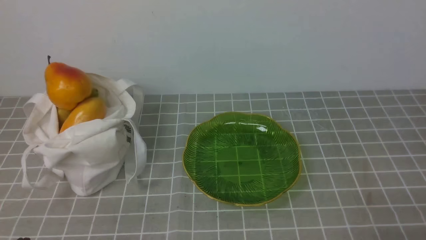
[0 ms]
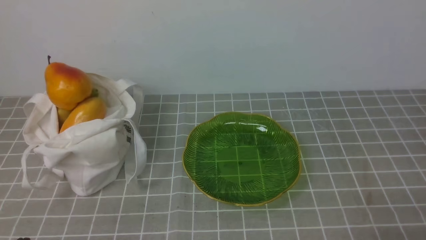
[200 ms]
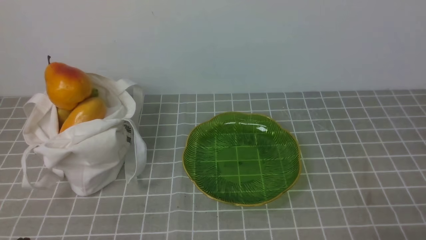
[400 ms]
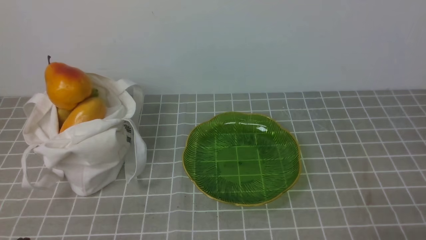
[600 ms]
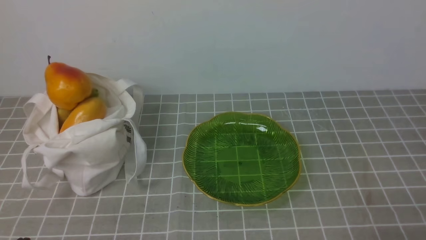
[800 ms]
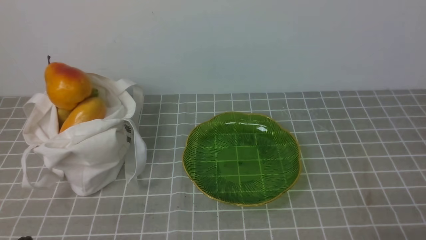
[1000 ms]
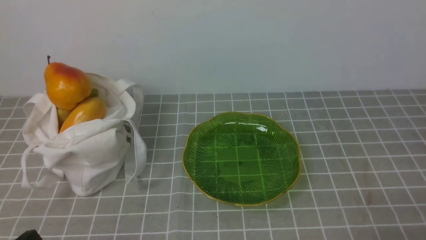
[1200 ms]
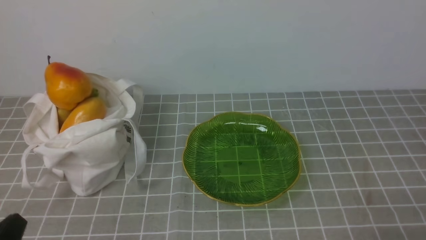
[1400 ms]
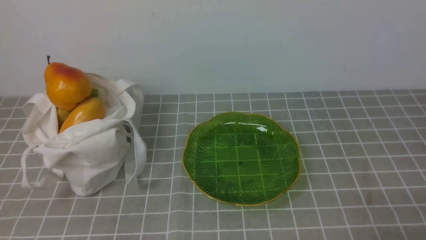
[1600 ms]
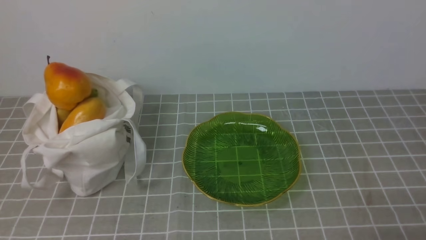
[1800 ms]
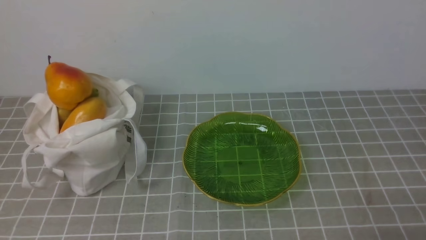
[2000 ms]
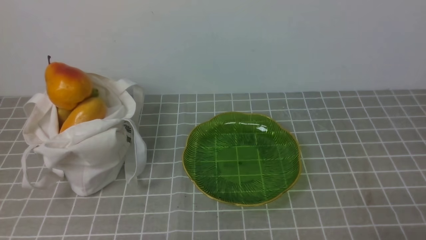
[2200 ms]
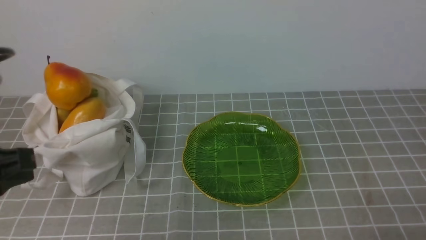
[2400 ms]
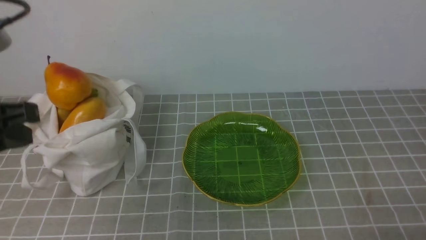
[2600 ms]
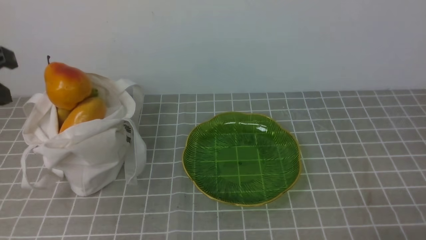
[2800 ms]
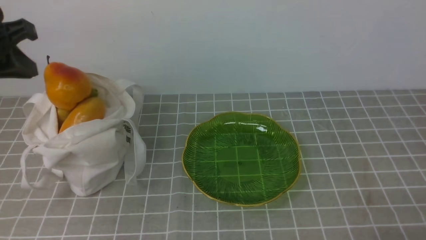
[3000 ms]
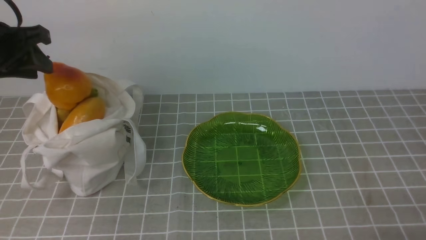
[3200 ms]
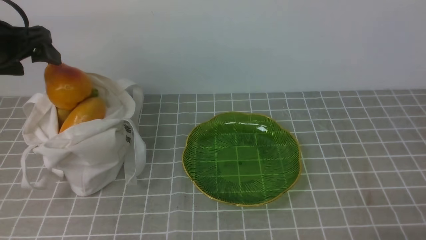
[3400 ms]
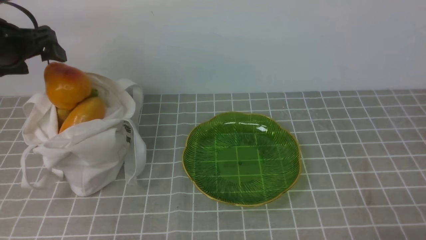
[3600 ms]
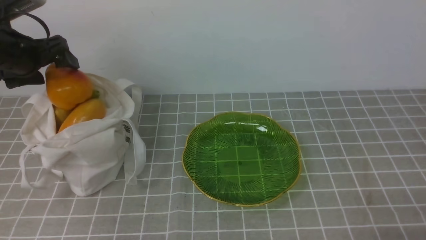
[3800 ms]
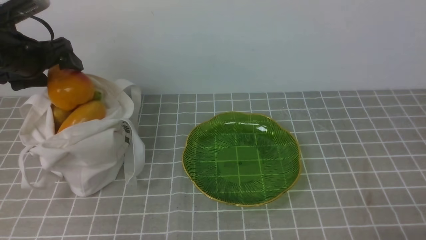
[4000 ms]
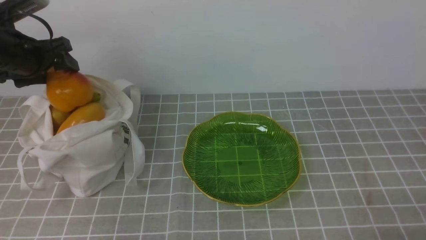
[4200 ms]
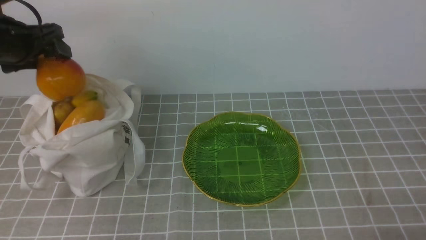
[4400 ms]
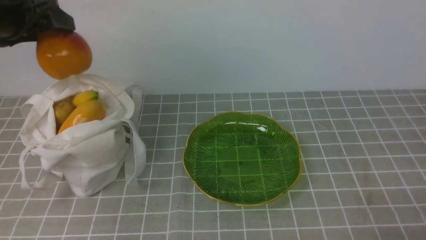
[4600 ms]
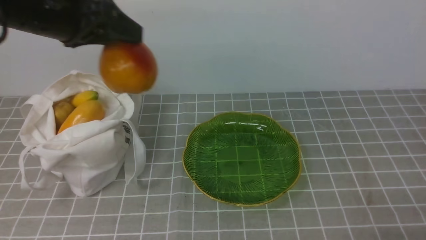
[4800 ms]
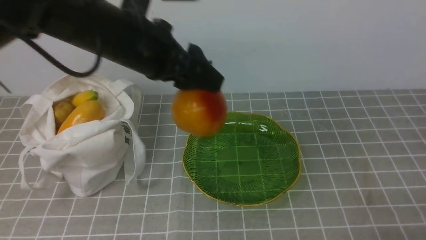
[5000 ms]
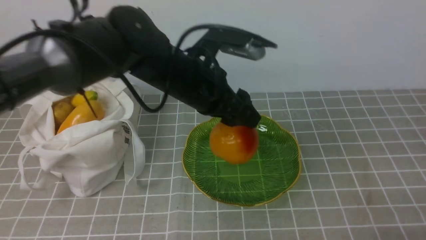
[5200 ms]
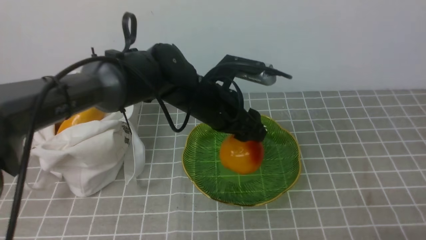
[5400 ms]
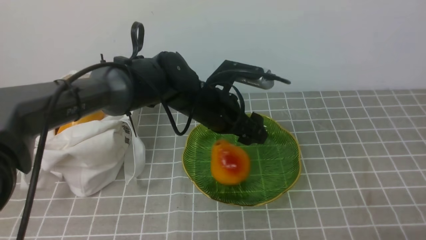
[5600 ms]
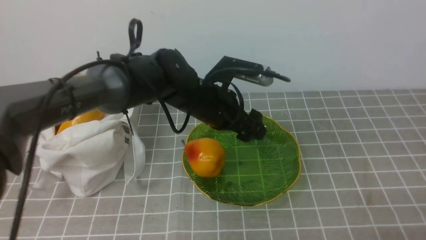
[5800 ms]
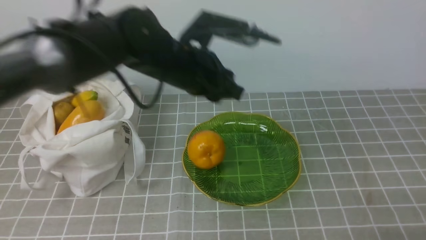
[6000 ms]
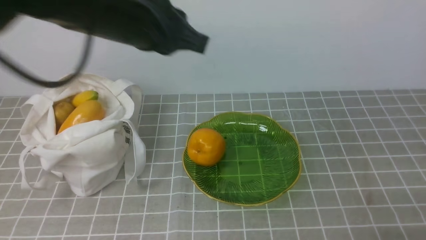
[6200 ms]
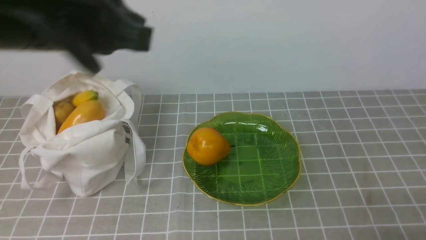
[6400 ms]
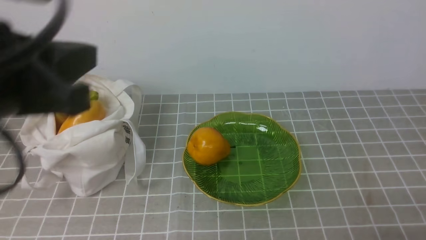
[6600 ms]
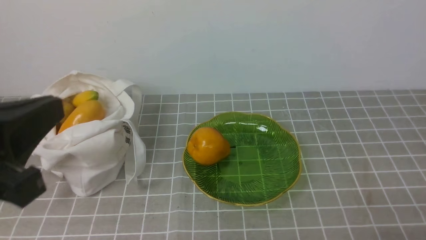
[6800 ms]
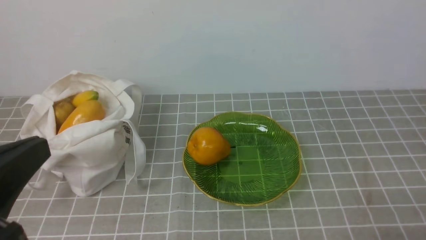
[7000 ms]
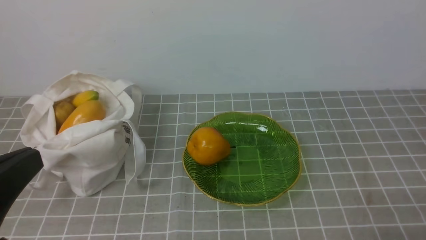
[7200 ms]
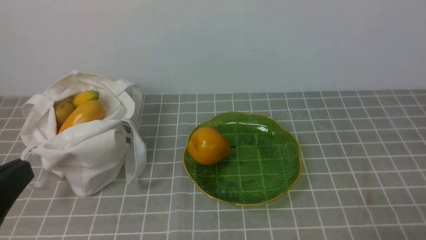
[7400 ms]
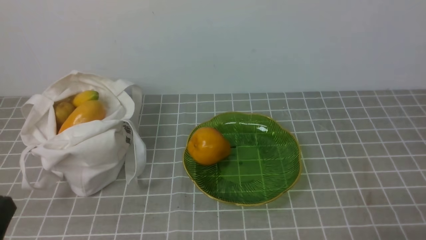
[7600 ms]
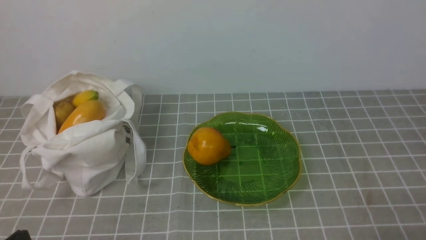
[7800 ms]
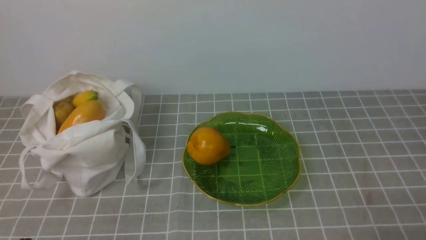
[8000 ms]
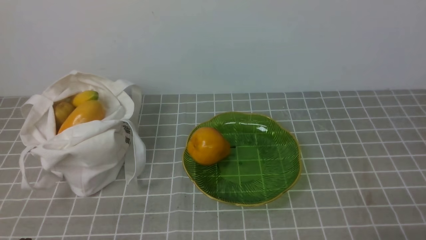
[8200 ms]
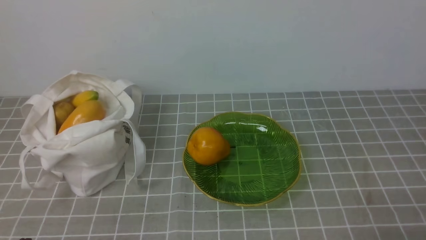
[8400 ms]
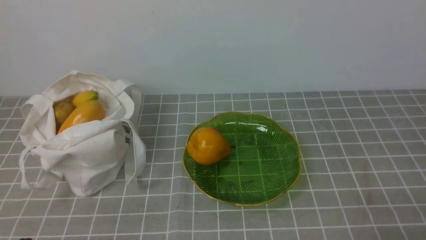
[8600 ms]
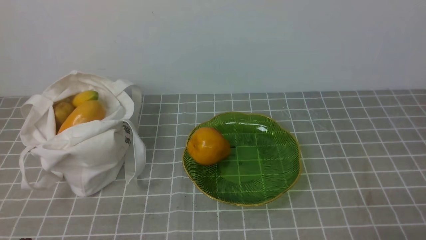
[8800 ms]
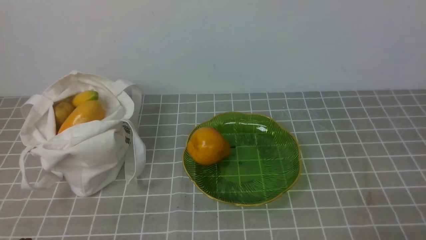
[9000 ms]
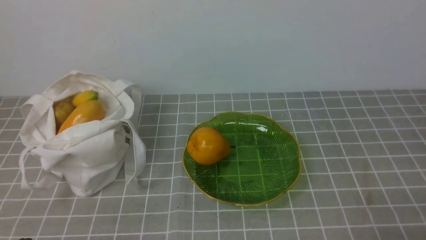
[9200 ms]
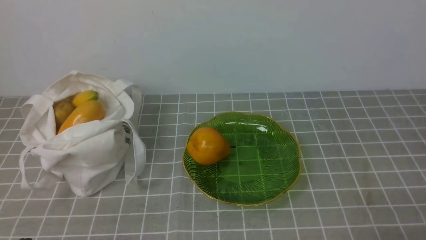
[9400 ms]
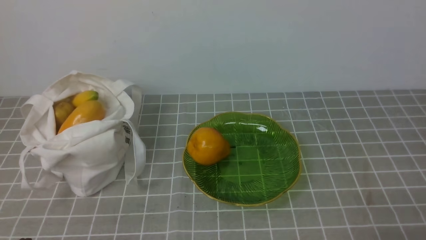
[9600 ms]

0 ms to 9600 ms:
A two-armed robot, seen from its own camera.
Step, 0 ms to 4400 ms: use the left arm to grab a pear from the bag.
Step, 4600 ms to 5800 ms: use the left arm to put the pear into the empty plate on the right.
1600 ms to 3200 ms: The left gripper travels forward and upward by some 30 cm.
3200 ms to 4800 ms: The left gripper travels to the right by about 10 cm, and opens.
4800 ms to 6400 ms: The left gripper heads backward and to the right, covering some 15 cm, and closes.
6400 ms to 8000 ms: The left gripper heads downward, backward and to the left, covering about 35 cm.
8000 ms to 9600 ms: Both grippers stay put.
